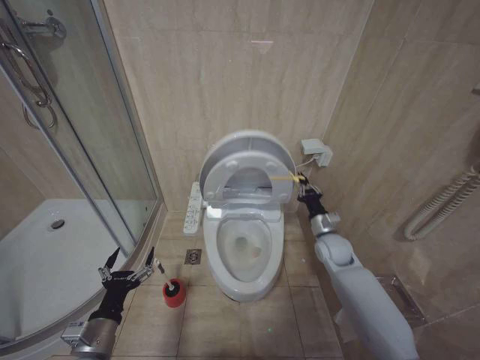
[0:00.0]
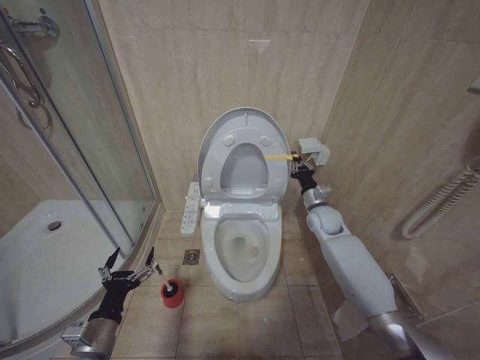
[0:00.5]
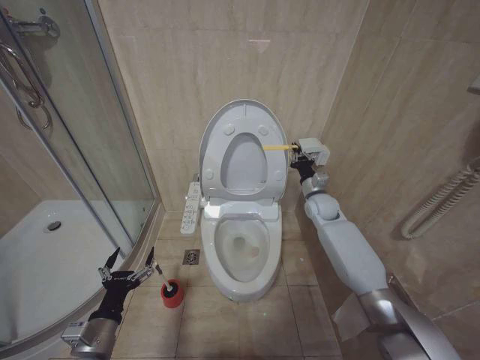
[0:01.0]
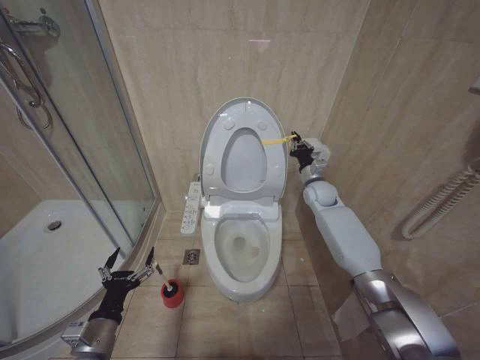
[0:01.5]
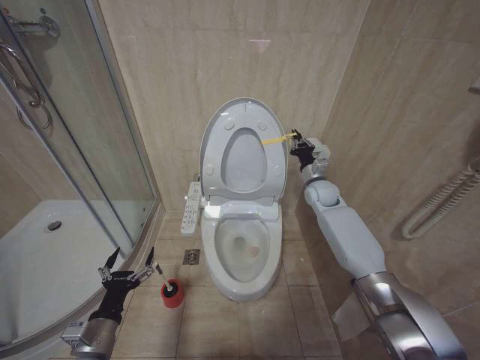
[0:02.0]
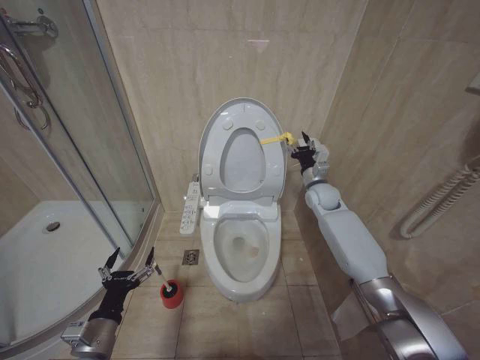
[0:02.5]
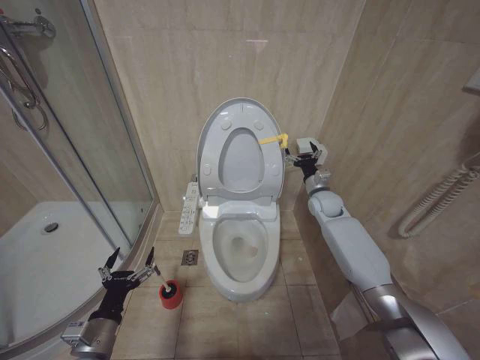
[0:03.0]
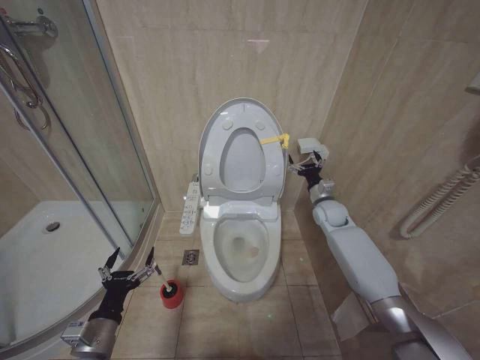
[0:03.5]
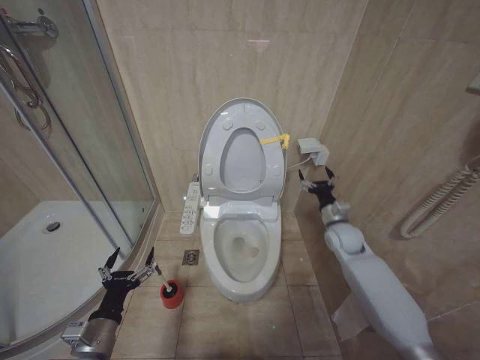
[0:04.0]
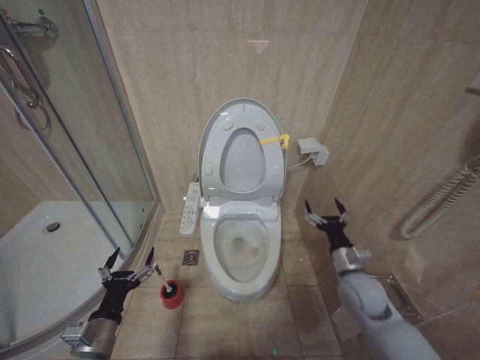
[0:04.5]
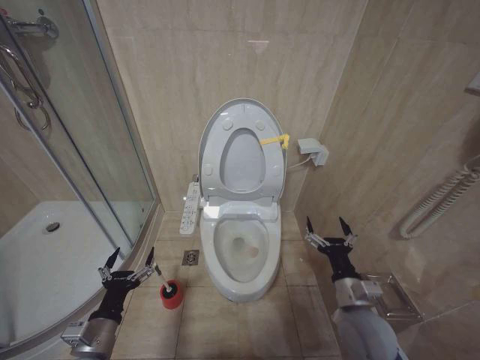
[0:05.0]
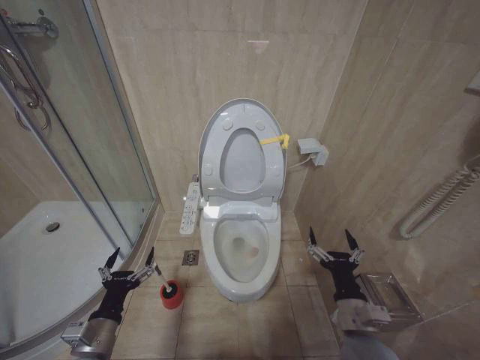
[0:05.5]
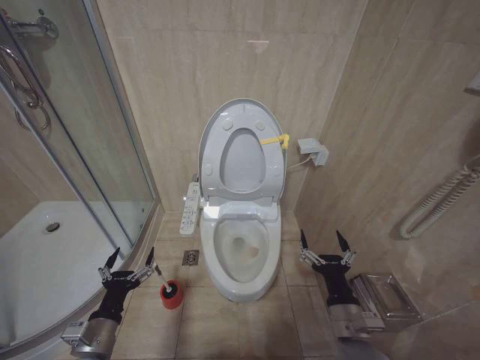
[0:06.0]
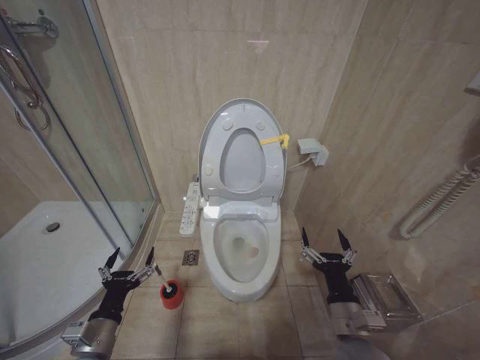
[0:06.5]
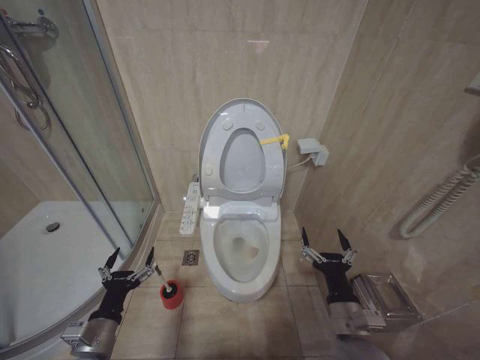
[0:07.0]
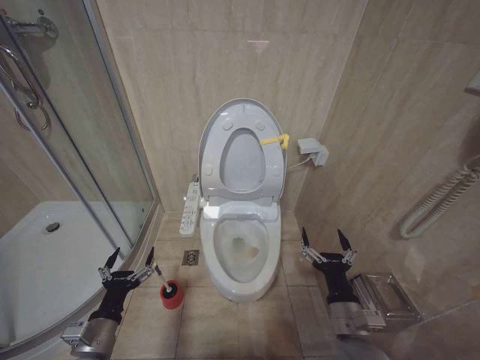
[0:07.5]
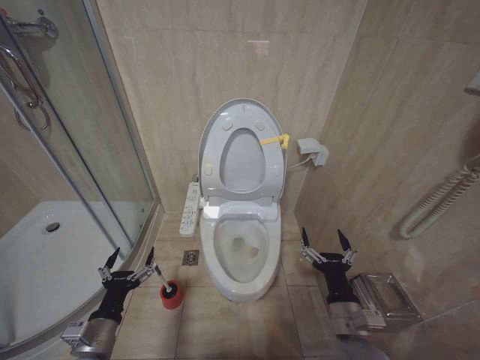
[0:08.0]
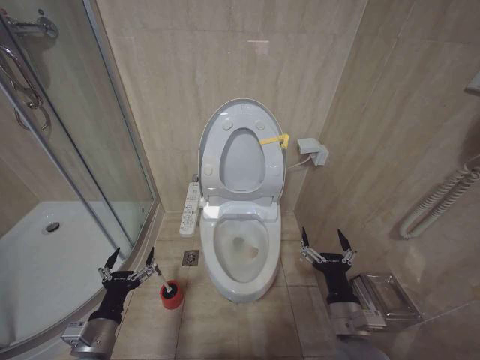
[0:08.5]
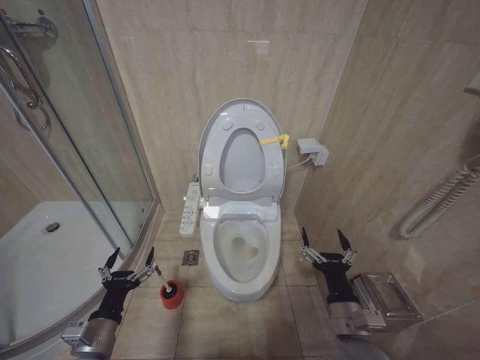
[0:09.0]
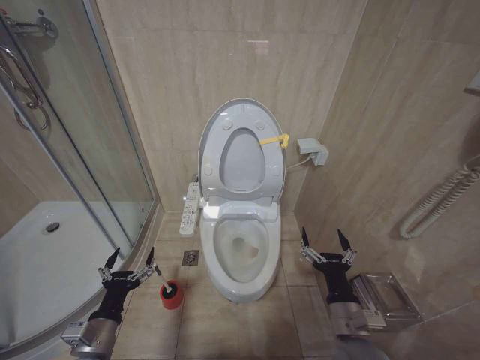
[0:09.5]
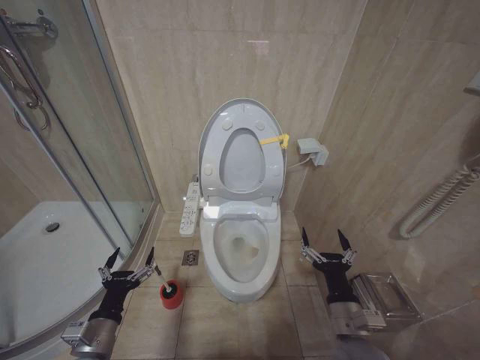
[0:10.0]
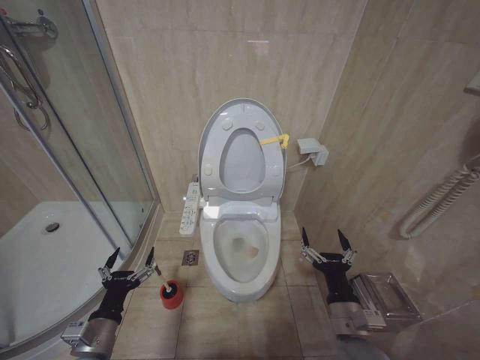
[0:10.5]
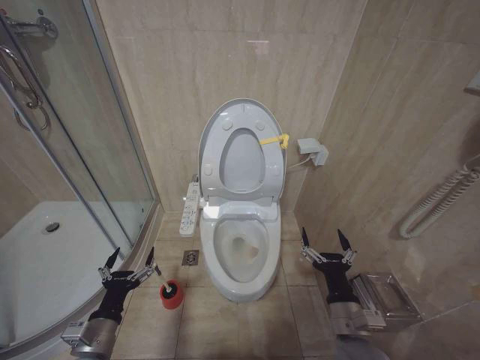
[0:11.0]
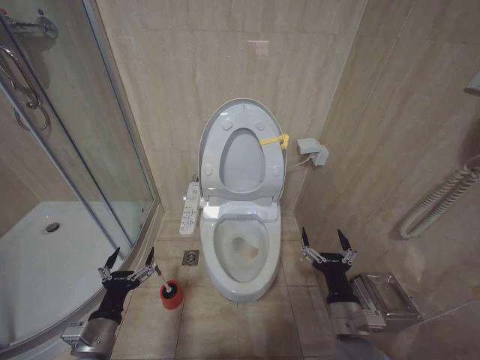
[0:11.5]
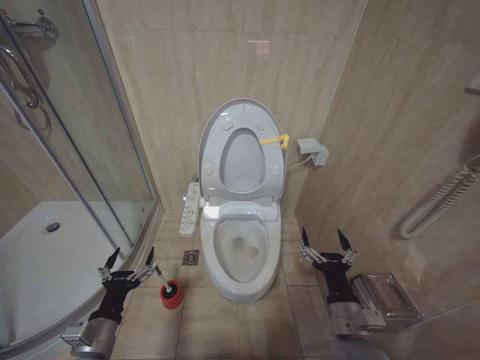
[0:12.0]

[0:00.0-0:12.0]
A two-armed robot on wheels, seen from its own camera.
Task of the whole recording: Open the toilet lid, clean the toilet bowl with a toilet brush, close the toilet lid, and flush.
0:00.0 to 0:02.0: The right gripper shifts roughly 20 cm forward and upward.
0:02.0 to 0:04.0: The right gripper moves backward and downward, some 10 cm, and opens.
0:04.0 to 0:06.0: The right gripper shifts approximately 30 cm backward.
0:06.0 to 0:12.0: The two grippers keep their place.

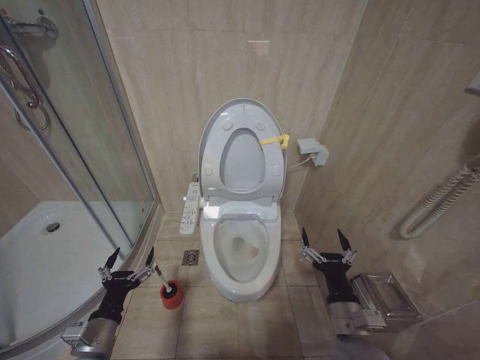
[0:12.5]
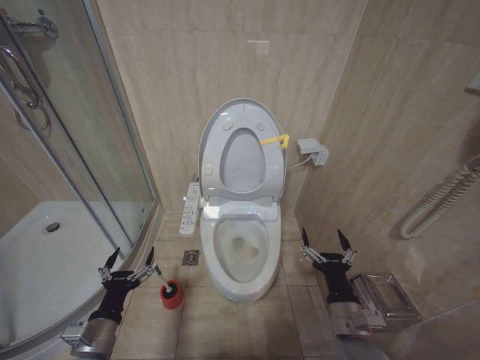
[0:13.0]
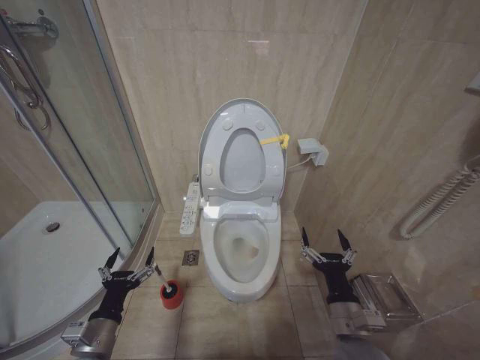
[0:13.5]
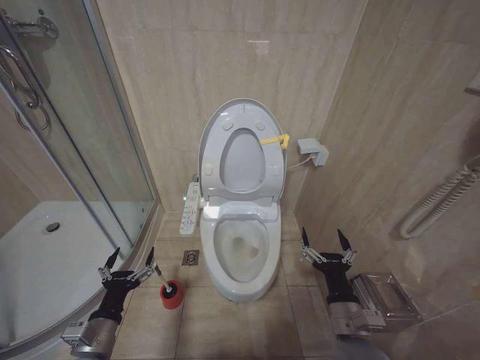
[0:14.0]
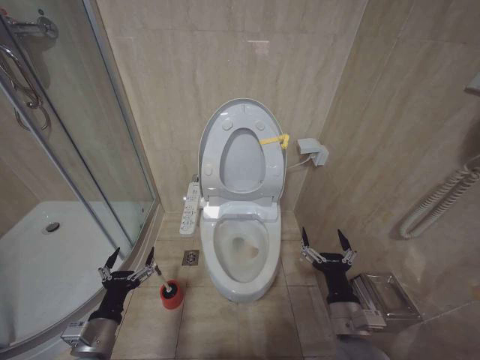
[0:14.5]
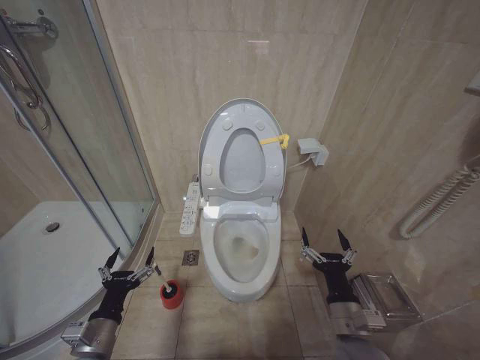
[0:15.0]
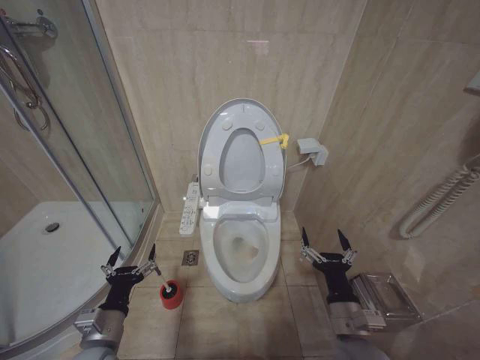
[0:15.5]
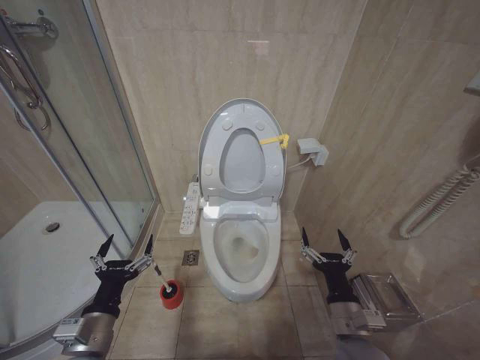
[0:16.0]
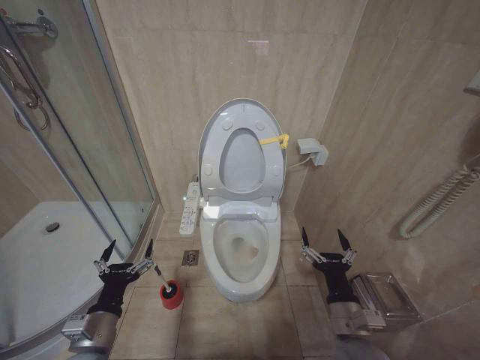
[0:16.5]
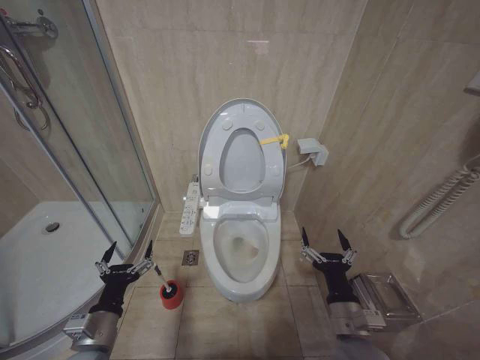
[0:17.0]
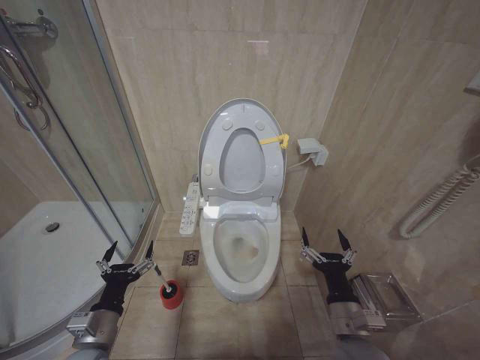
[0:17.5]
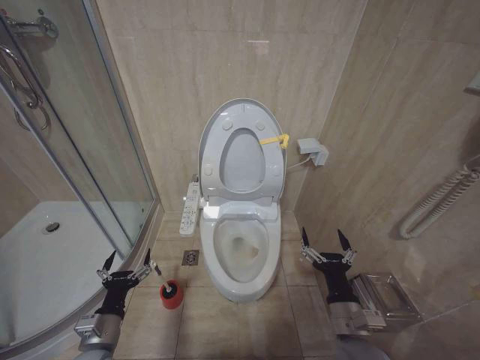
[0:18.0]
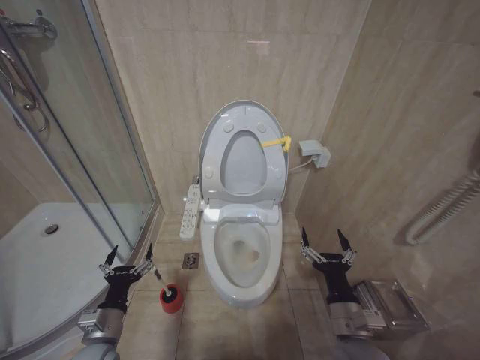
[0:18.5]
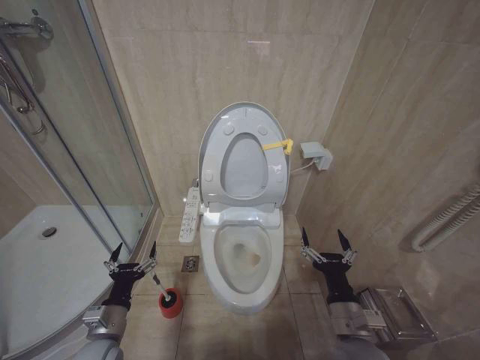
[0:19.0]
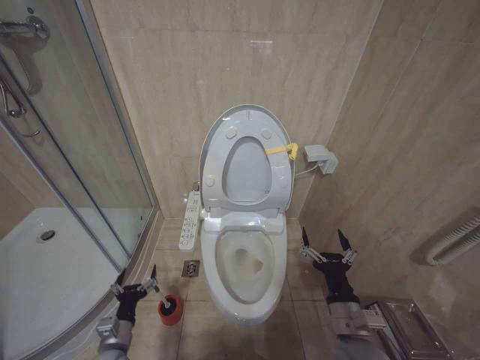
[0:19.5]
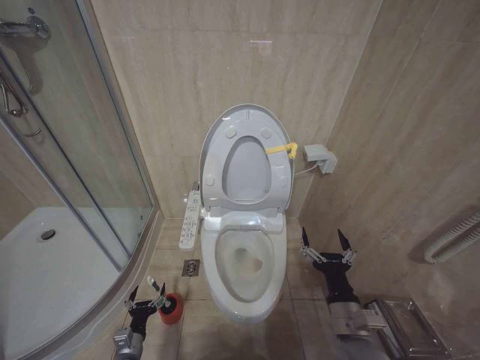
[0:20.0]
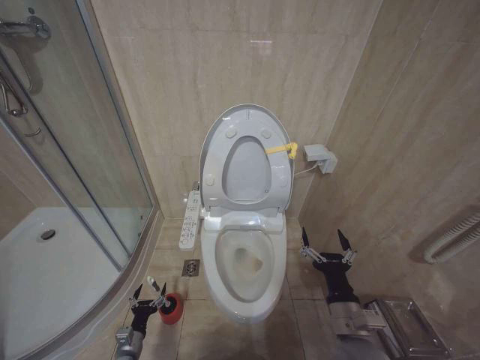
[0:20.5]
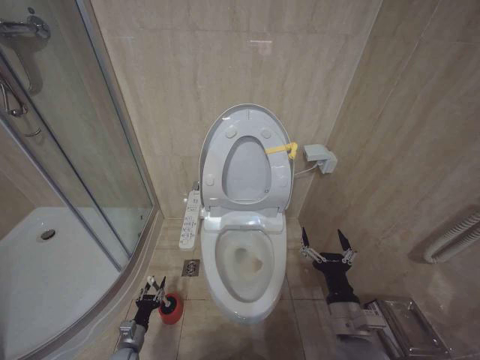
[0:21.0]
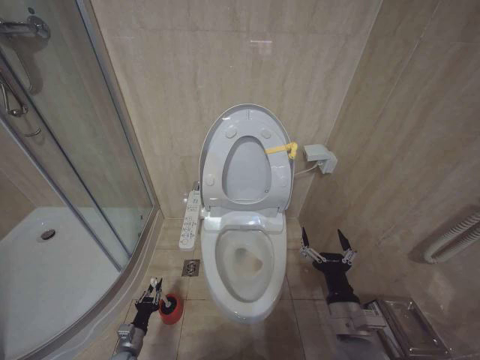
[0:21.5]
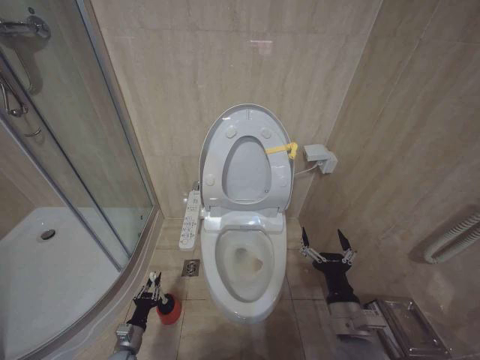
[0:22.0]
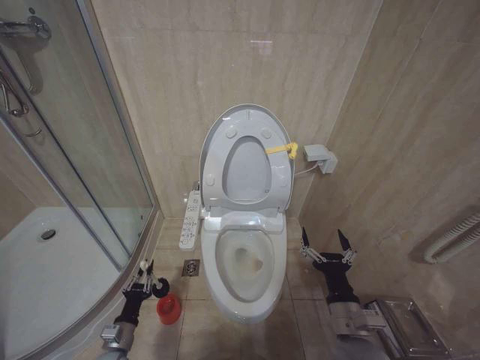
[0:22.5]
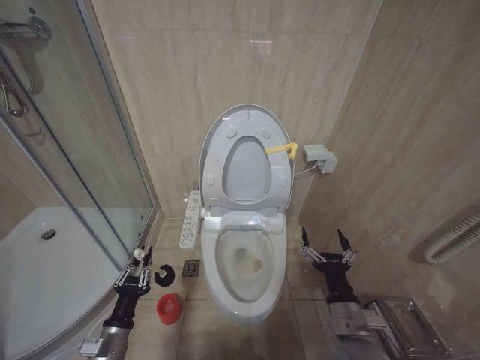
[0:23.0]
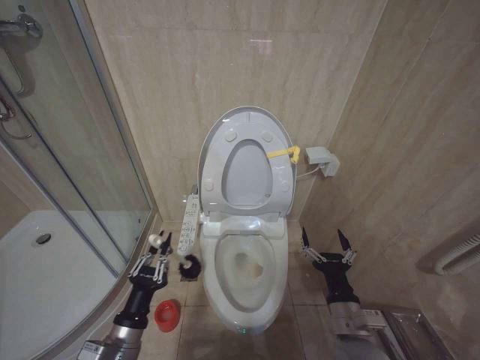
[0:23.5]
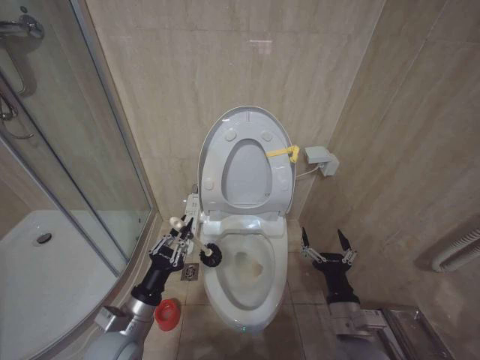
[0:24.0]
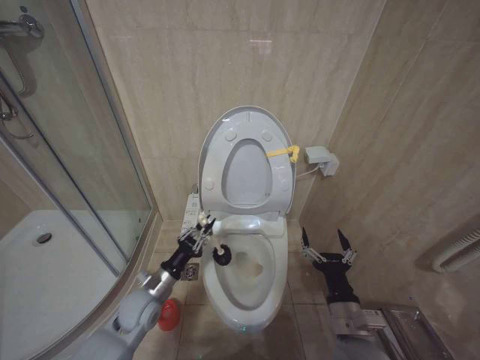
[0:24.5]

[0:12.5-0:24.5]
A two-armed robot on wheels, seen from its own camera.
Task of the whole recording: Open the toilet lid, clean the toilet bowl with a toilet brush, close the toilet lid, and flush.
0:12.5 to 0:14.5: Neither gripper changes place.
0:16.5 to 0:18.5: The left gripper heads downward, covering approximately 5 cm.
0:18.5 to 0:20.5: The left gripper heads downward, covering roughly 25 cm.
0:20.5 to 0:22.5: The left gripper moves upward, about 5 cm, and closes up.
0:22.5 to 0:24.5: The left gripper is displaced upward and to the right by about 20 cm.

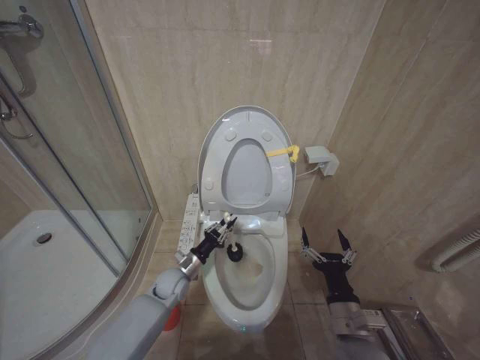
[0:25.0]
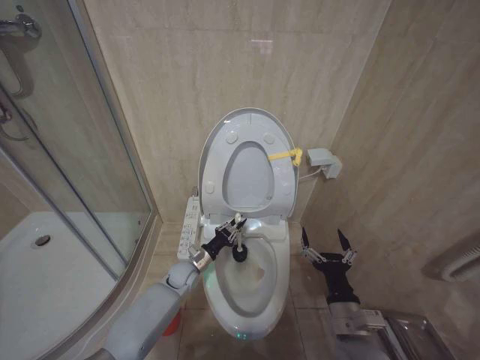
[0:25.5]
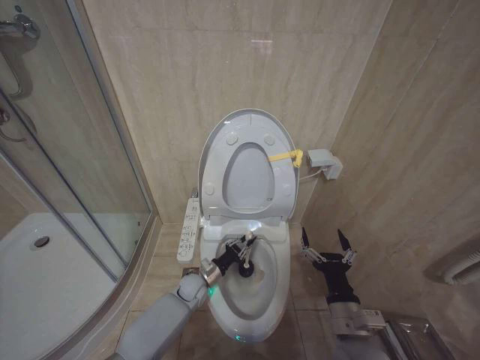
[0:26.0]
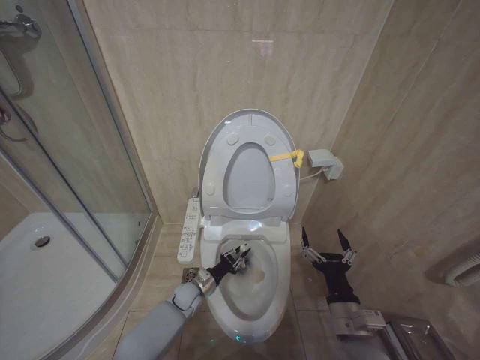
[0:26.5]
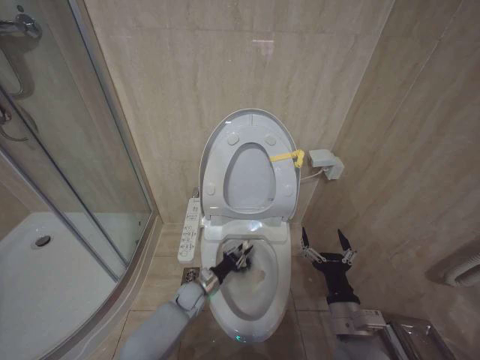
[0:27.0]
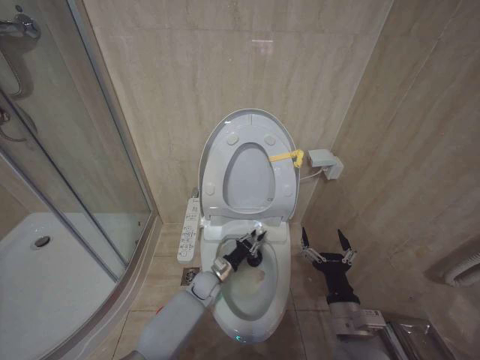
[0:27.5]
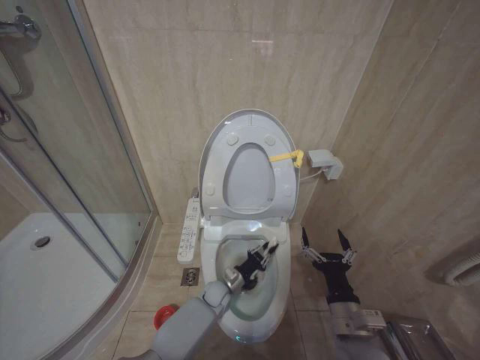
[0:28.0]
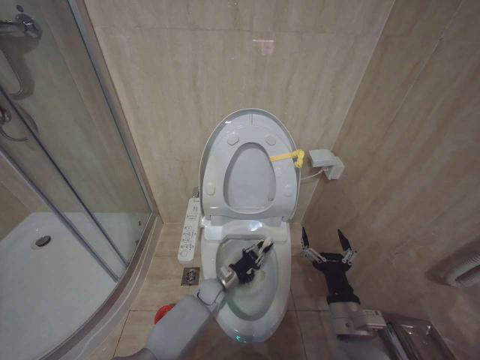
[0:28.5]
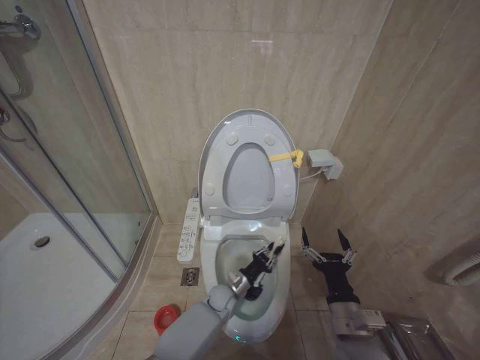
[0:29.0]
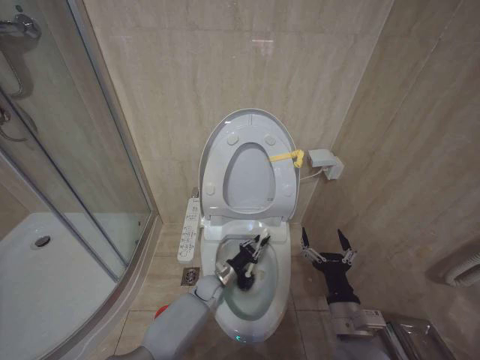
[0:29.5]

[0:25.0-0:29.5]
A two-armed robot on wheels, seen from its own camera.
Task of the whole recording: Open the toilet lid, clean the toilet bowl with a toilet brush, close the toilet lid, and flush.
0:25.0 to 0:27.0: The left gripper shifts approximately 10 cm downward.
0:27.0 to 0:29.5: The left gripper travels to the right by approximately 5 cm.
